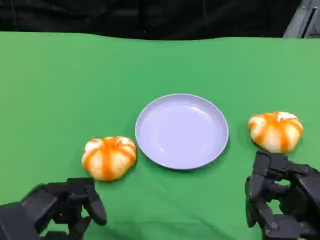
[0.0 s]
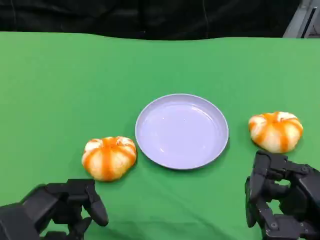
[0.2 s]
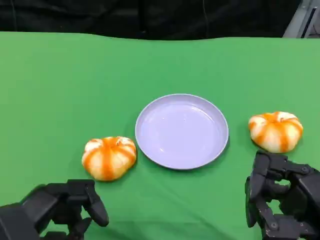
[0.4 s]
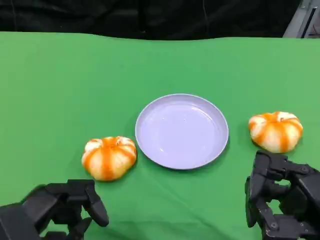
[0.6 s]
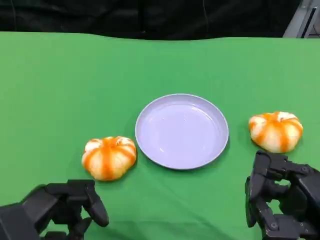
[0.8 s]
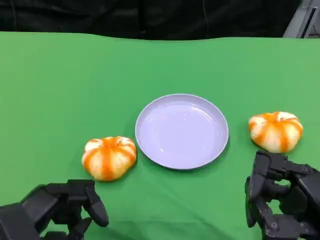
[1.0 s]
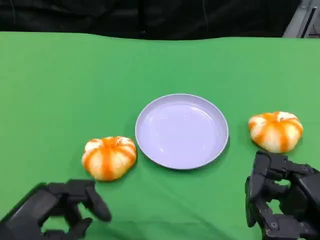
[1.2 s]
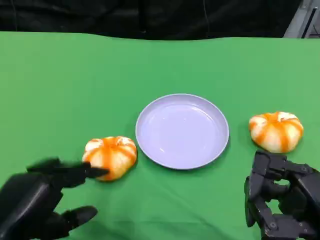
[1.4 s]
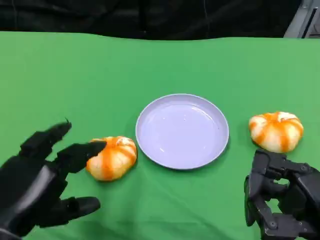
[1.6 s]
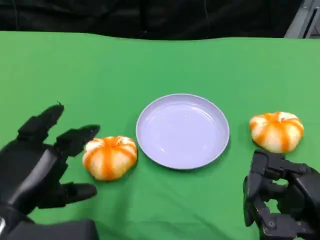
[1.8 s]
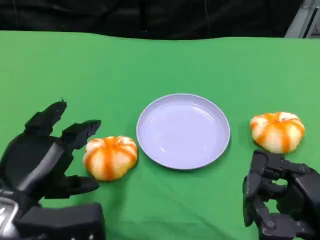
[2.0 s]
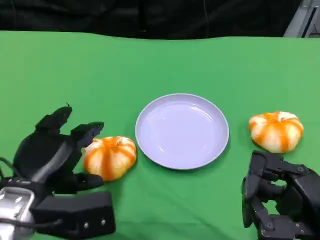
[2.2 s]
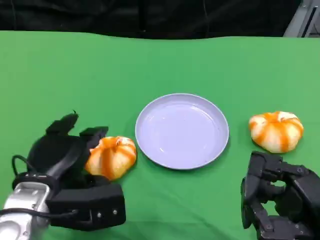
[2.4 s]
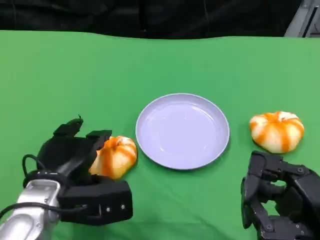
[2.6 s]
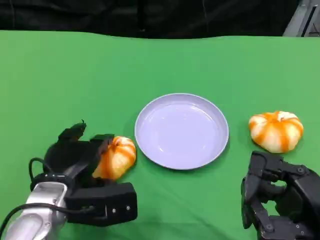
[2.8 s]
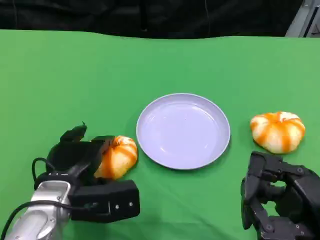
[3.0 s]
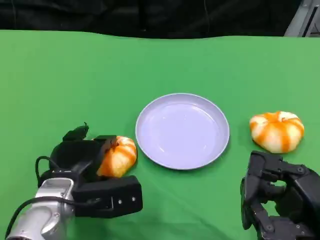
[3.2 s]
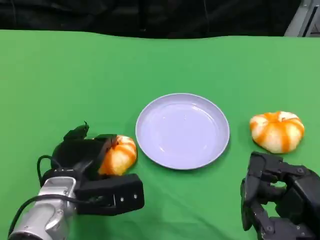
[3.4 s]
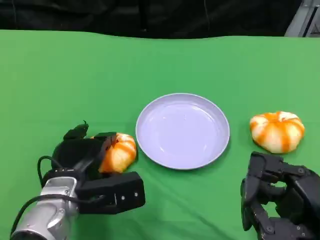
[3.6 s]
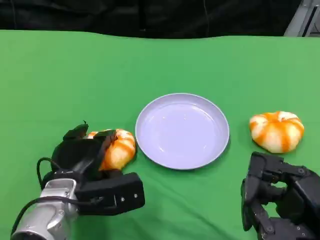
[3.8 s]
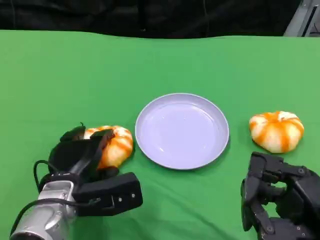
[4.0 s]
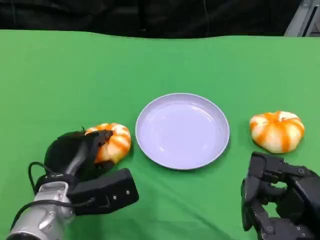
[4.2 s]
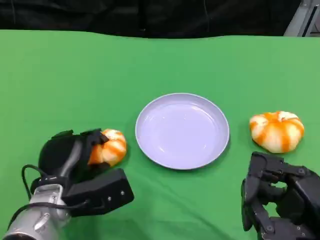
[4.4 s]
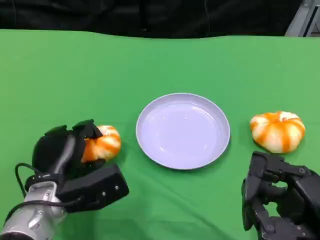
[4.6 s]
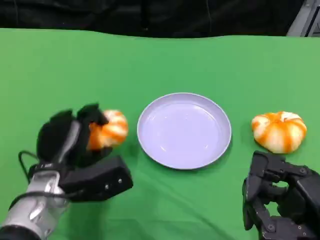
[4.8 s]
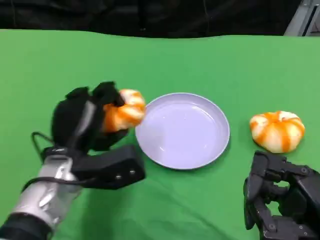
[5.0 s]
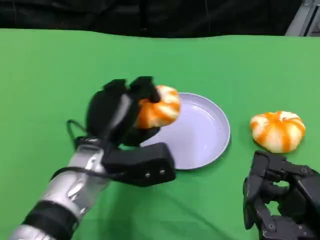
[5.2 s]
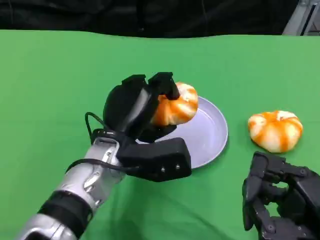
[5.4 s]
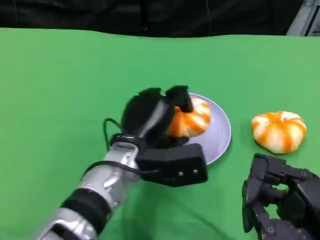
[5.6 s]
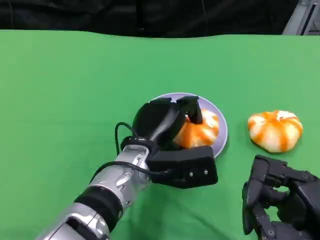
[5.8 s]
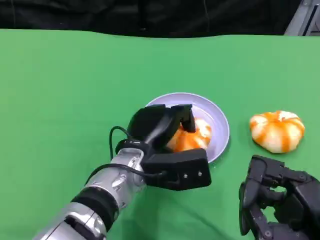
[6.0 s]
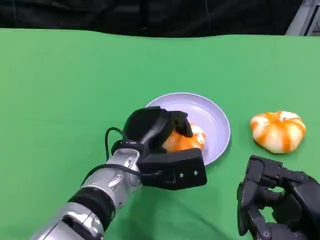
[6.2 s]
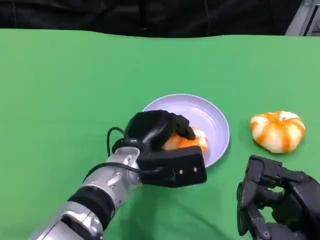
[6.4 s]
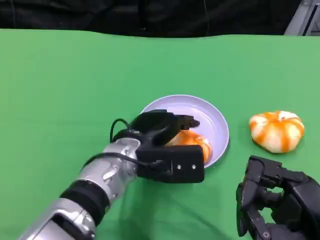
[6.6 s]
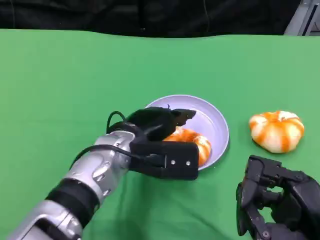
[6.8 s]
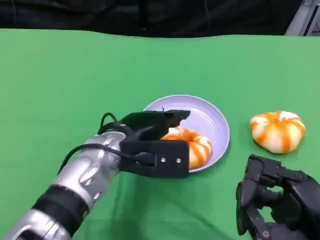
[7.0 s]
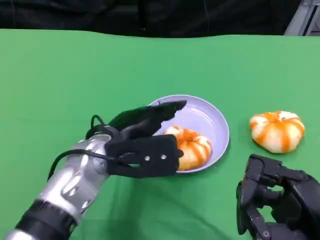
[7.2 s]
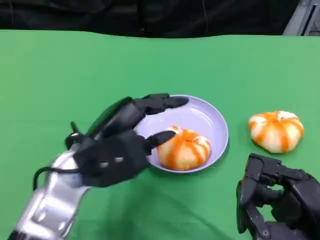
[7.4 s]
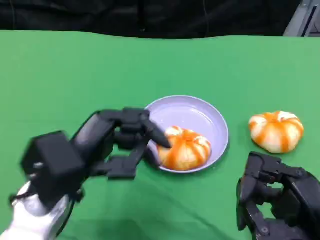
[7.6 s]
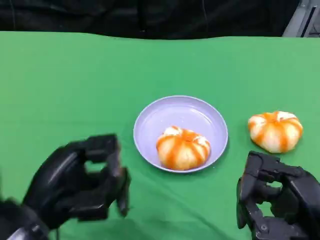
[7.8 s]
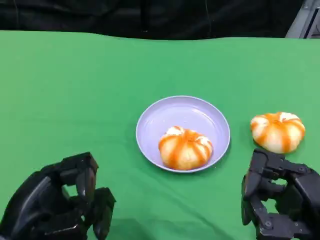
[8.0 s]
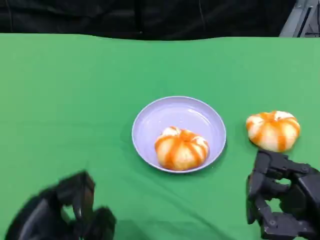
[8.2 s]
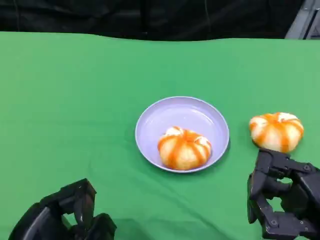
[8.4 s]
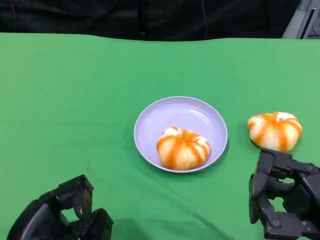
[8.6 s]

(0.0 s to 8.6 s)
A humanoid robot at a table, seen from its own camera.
Task of the whole recording: Grasp the bread from the table and place it into the plate.
1.4 s - 2.8 s: The left hand is displaced forward, downward and to the right by roughly 15 cm.
2.8 s - 4.4 s: The hands move only a little.
4.4 s - 5.8 s: The left hand shifts roughly 15 cm to the right.
5.8 s - 7.2 s: The left hand is displaced to the left by roughly 5 cm.
7.2 s - 8.6 s: The left hand travels backward and to the left by some 20 cm.

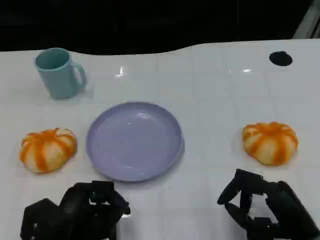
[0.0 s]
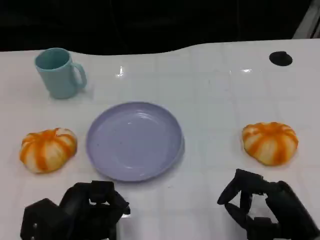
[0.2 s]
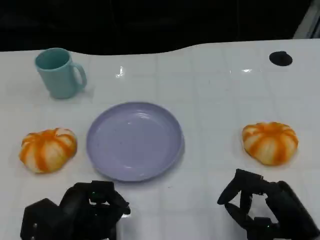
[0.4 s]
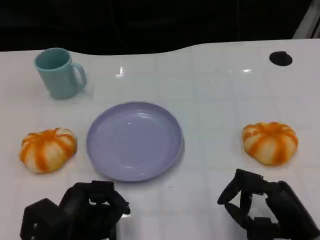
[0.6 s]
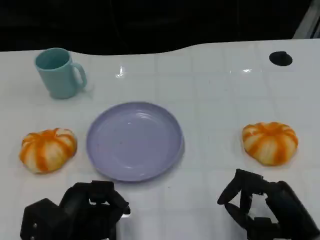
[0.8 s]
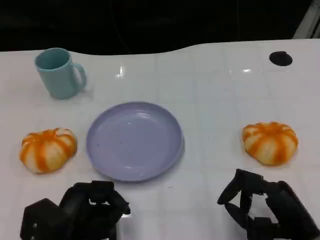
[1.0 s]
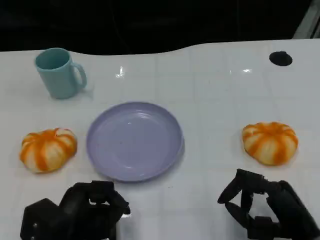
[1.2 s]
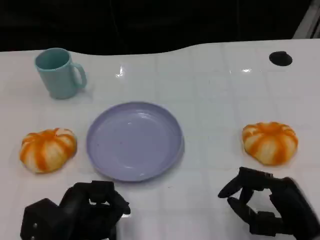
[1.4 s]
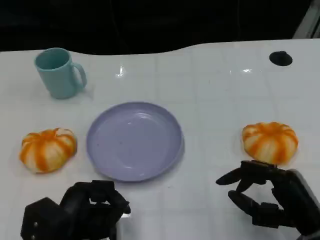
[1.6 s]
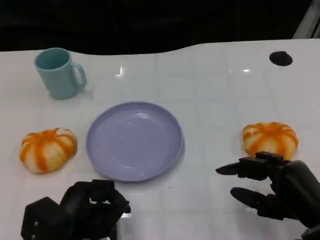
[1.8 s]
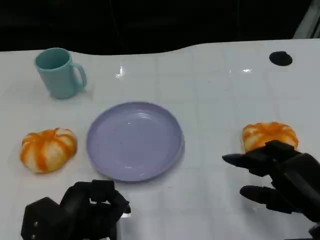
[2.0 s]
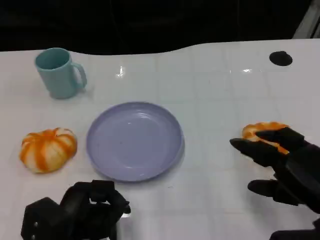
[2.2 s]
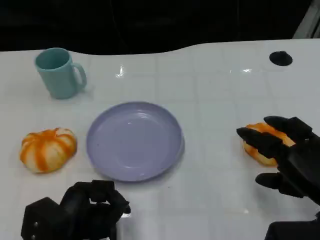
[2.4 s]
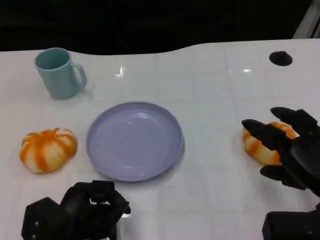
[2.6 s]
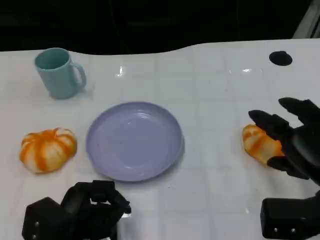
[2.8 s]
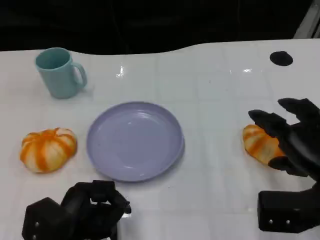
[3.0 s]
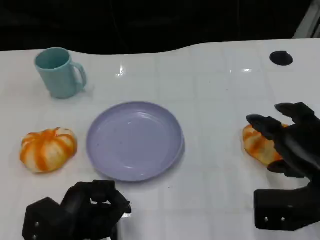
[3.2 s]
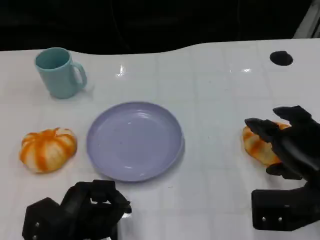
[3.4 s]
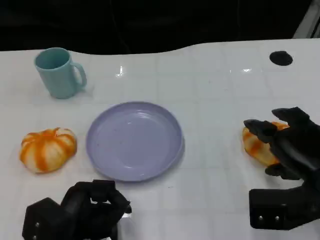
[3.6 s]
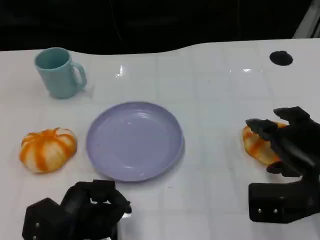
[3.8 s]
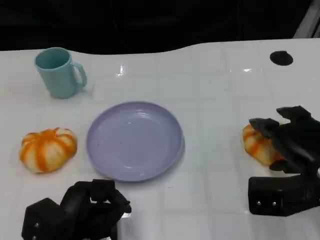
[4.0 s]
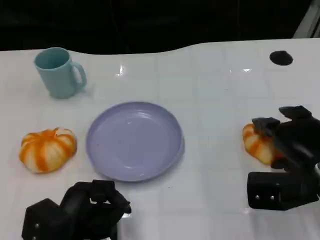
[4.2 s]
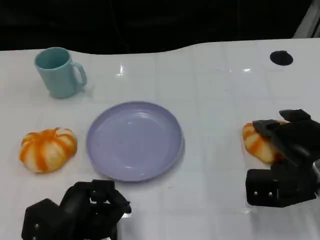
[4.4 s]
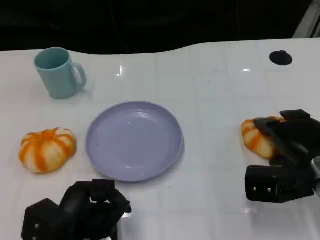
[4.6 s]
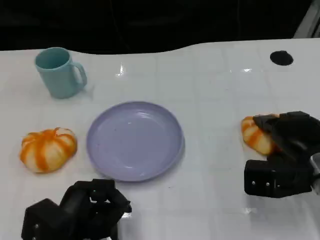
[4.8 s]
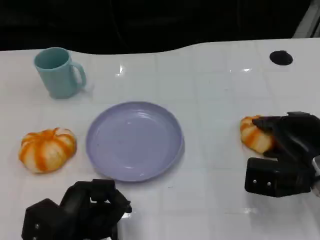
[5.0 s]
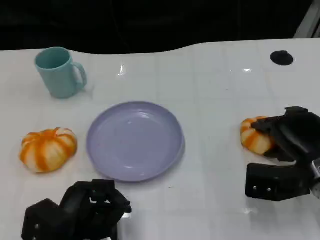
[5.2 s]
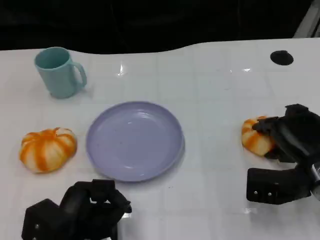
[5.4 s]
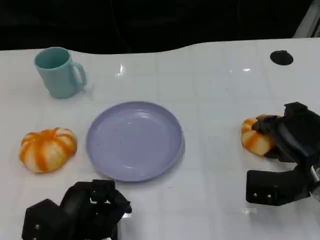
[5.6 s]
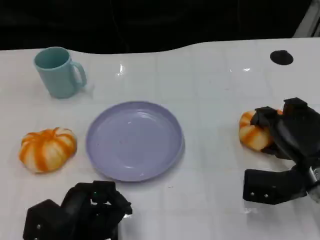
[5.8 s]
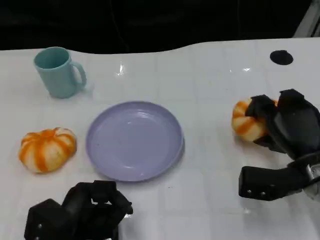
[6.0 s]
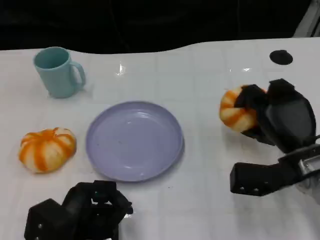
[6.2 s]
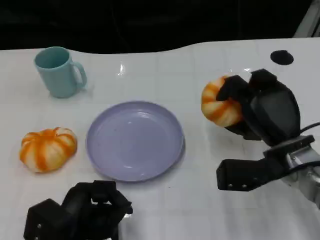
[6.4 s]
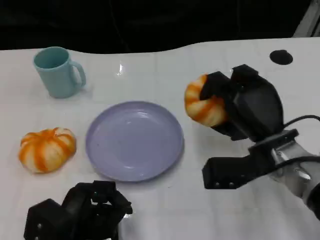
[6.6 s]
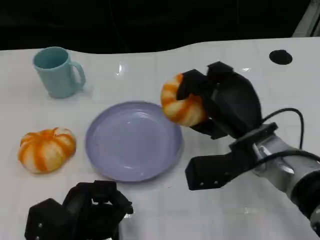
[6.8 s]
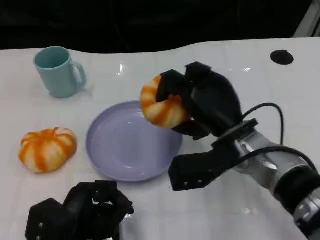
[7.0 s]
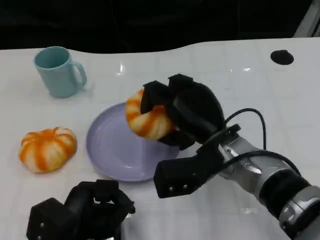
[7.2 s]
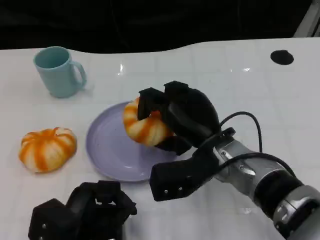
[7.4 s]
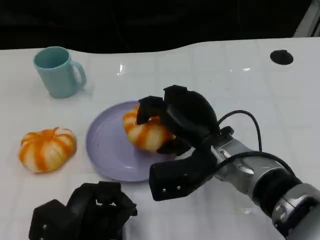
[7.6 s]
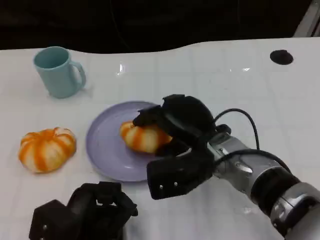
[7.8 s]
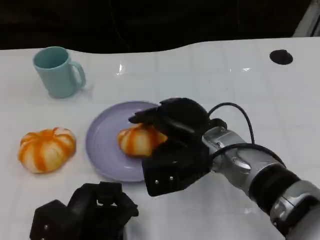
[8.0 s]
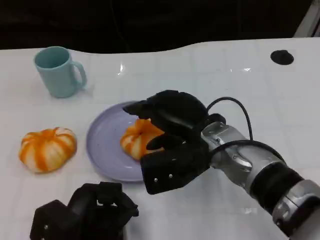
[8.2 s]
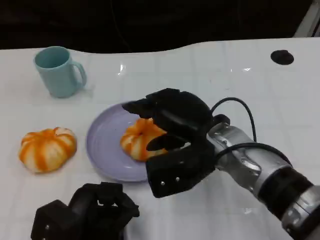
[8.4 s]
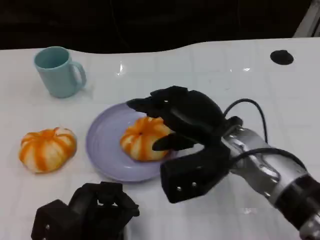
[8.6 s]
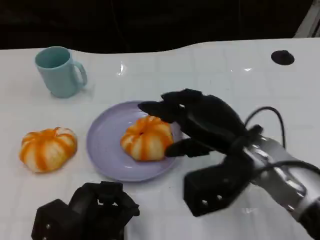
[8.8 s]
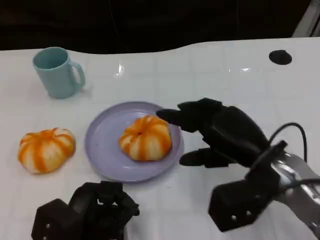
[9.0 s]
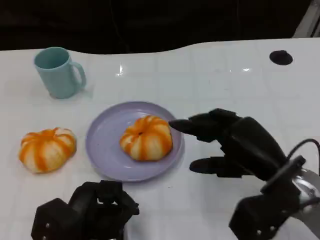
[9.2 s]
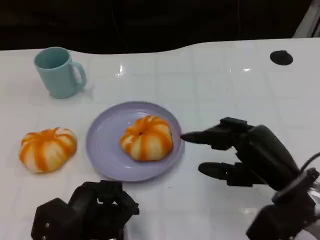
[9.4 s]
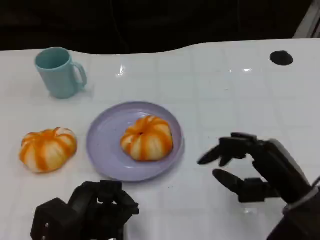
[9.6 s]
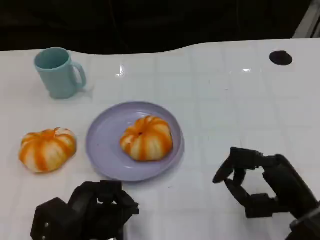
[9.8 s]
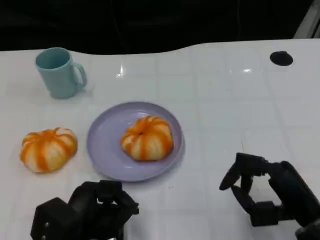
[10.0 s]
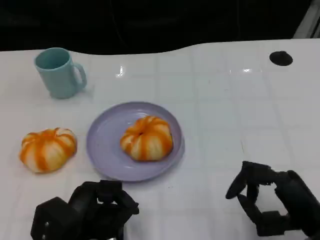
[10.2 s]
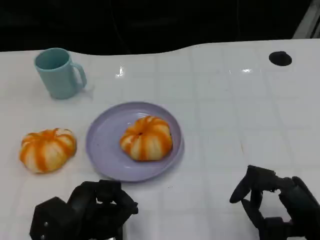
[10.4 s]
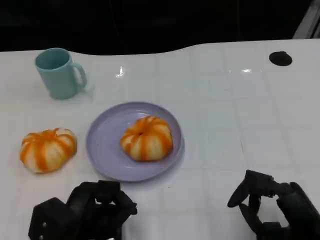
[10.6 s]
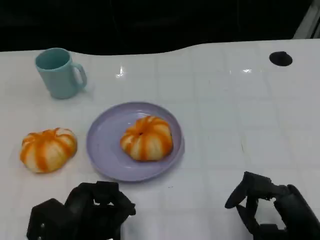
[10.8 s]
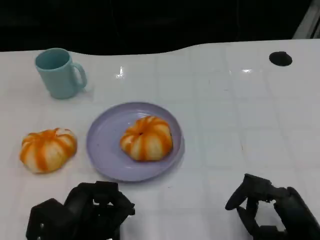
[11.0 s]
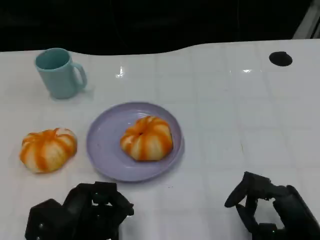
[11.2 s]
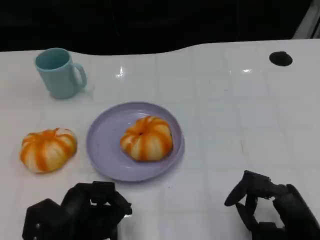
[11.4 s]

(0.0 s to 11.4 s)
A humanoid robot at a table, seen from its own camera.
Task of the whole recording: Grasp the bread from the table and place it into the plate.
0.0 s - 1.4 s: There are only small adjustments of the hands.
1.4 s - 2.8 s: The right hand shifts approximately 5 cm upward.
2.8 s - 4.2 s: The right hand ends up some 5 cm from where it was.
4.2 s - 5.6 s: The hands make only small movements.
5.6 s - 7.2 s: The right hand goes about 15 cm to the left.
8.6 s - 10.0 s: The right hand shifts about 15 cm to the right, backward and downward.
10.0 s - 11.4 s: The hands move only a little.

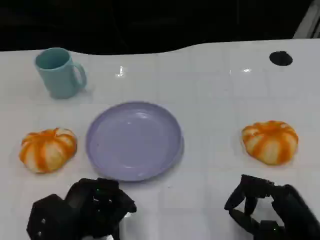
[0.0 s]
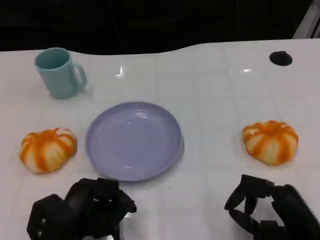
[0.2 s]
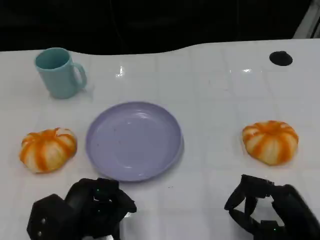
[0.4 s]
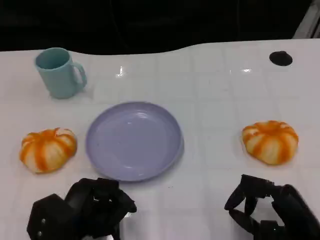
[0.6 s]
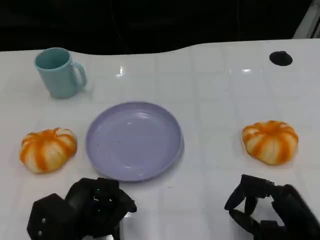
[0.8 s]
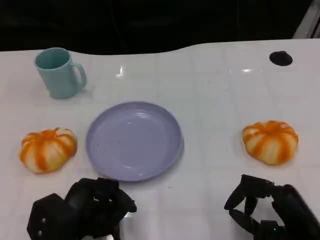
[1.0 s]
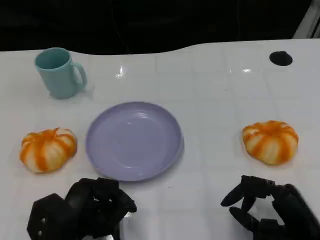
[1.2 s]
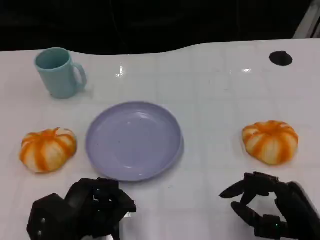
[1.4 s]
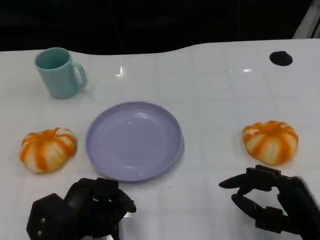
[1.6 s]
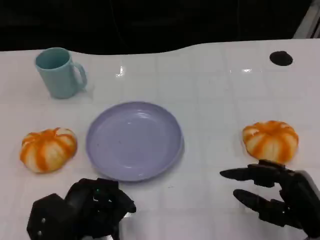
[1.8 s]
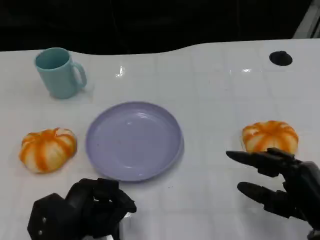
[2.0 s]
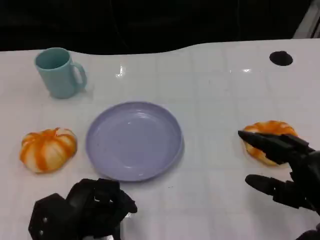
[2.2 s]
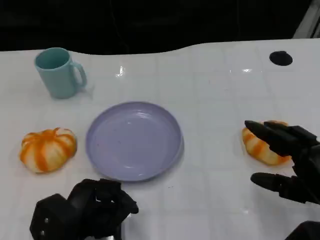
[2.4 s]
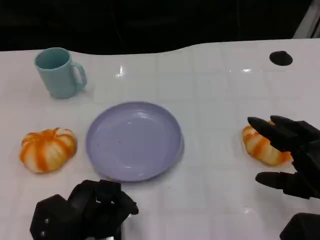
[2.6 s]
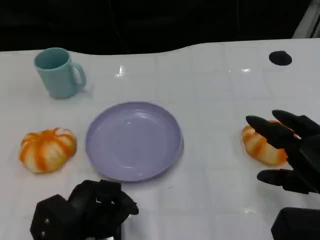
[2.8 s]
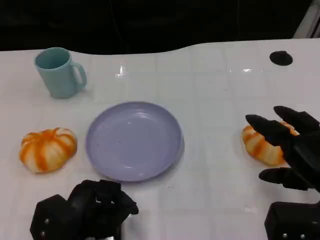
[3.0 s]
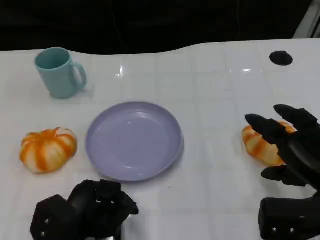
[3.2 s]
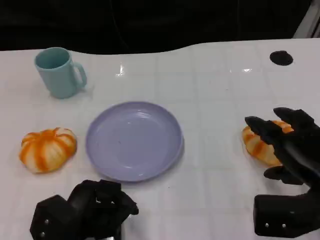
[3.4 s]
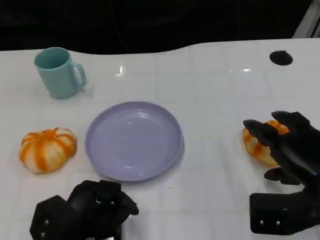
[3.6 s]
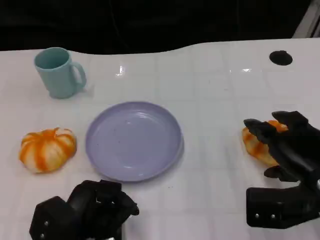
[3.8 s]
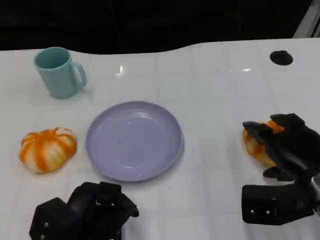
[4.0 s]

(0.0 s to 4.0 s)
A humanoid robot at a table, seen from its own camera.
Task of the whole recording: Grasp the bread from the table and place it into the plate.
0.0 s - 1.4 s: There are only small adjustments of the hands.
1.4 s - 2.6 s: The right hand shifts some 5 cm upward.
2.6 s - 4.0 s: The right hand shifts some 5 cm forward.
